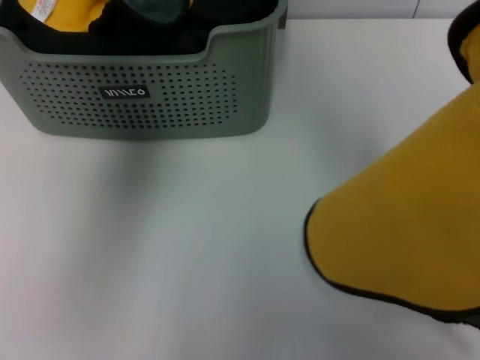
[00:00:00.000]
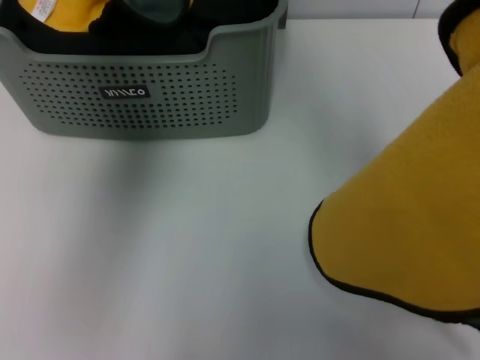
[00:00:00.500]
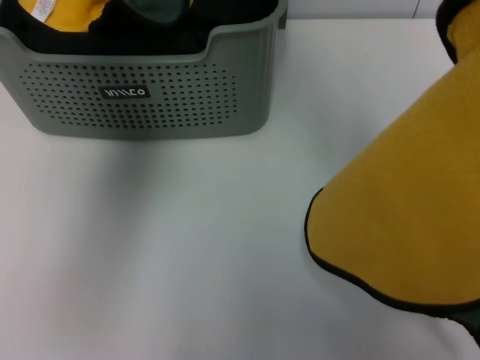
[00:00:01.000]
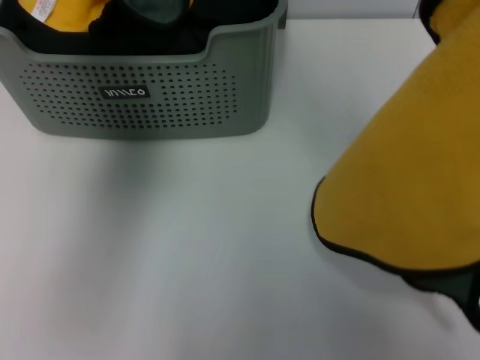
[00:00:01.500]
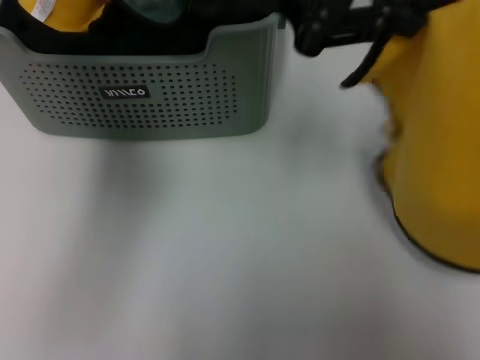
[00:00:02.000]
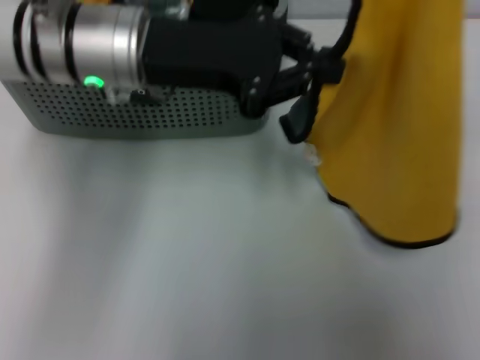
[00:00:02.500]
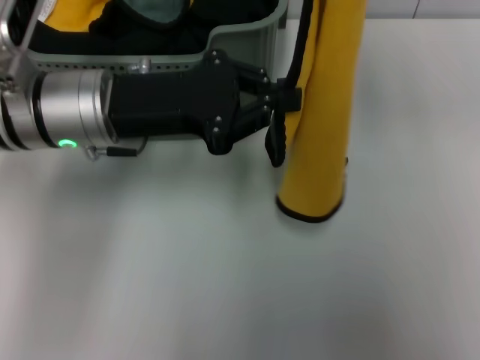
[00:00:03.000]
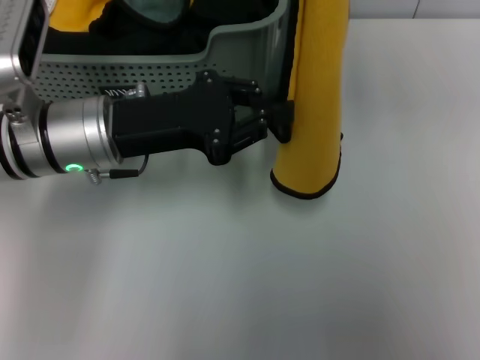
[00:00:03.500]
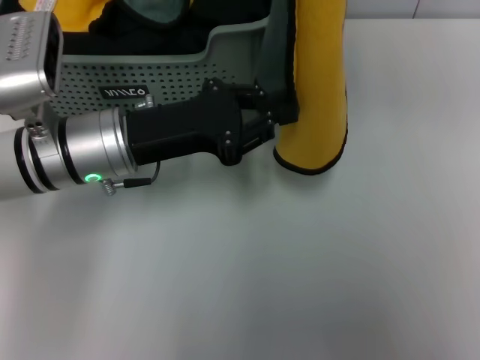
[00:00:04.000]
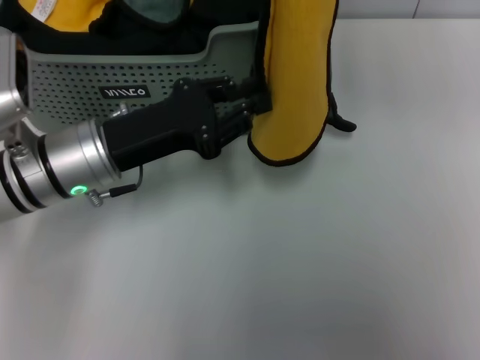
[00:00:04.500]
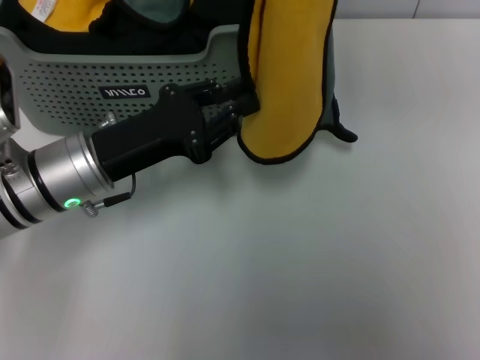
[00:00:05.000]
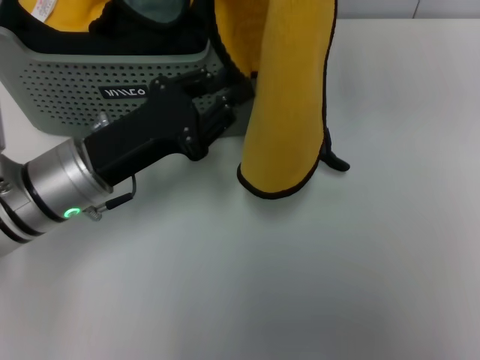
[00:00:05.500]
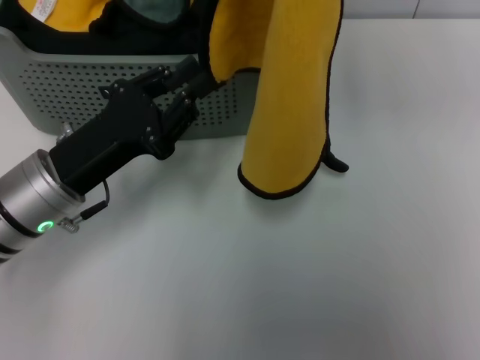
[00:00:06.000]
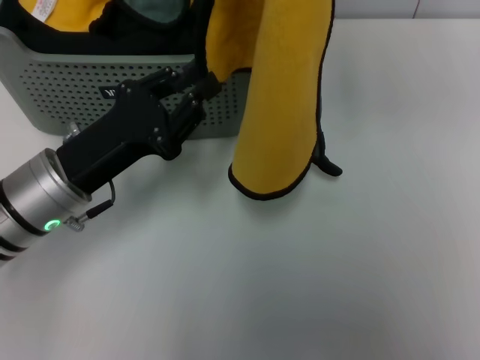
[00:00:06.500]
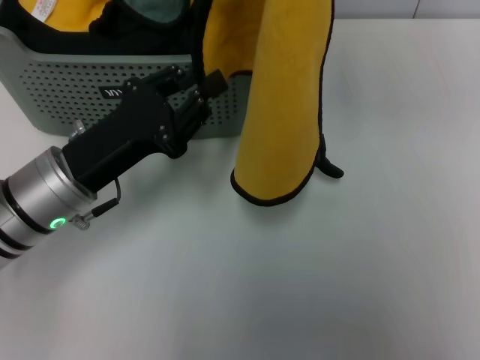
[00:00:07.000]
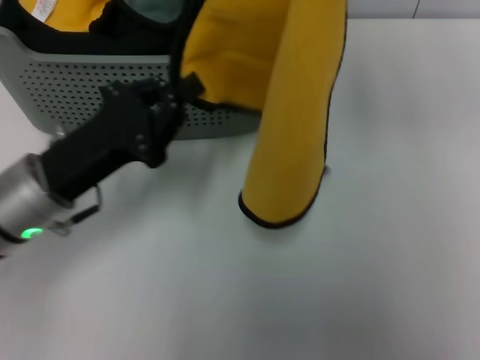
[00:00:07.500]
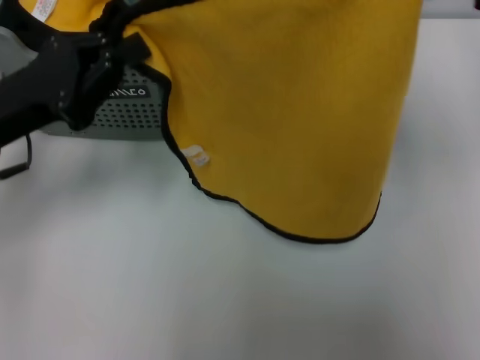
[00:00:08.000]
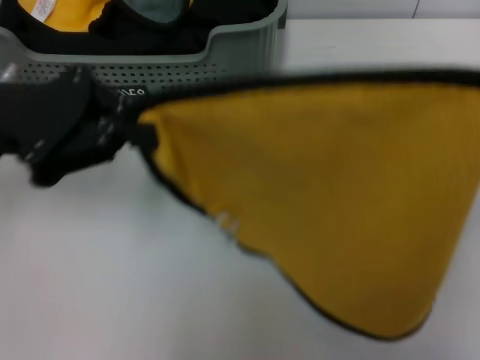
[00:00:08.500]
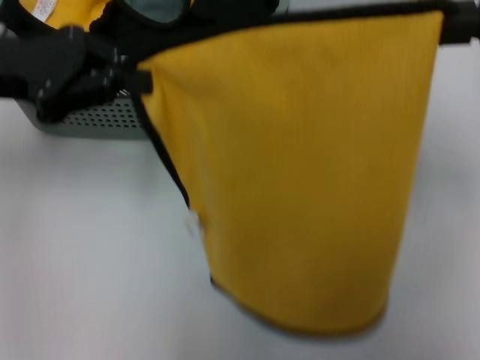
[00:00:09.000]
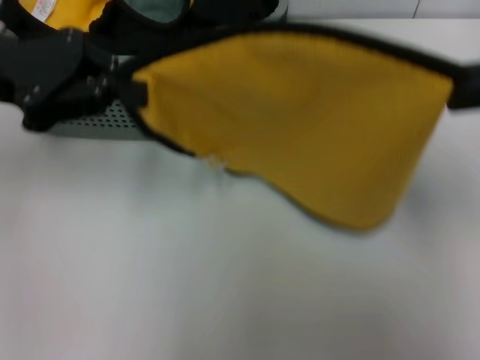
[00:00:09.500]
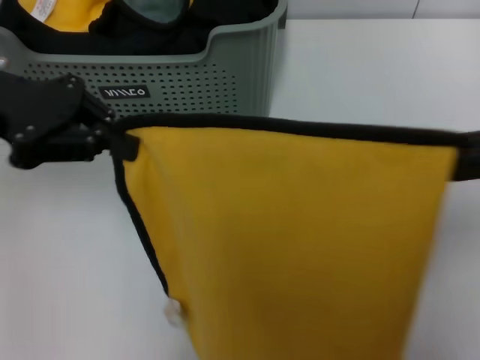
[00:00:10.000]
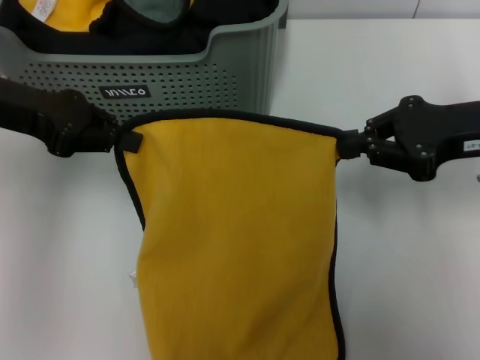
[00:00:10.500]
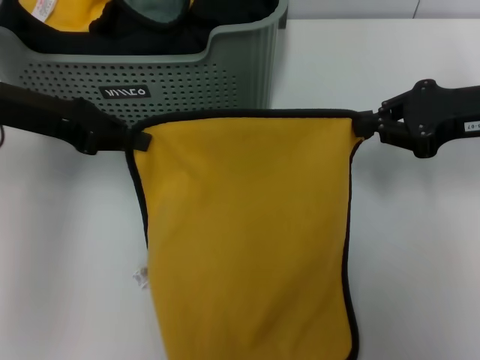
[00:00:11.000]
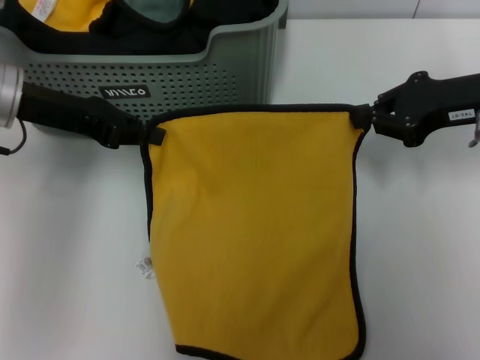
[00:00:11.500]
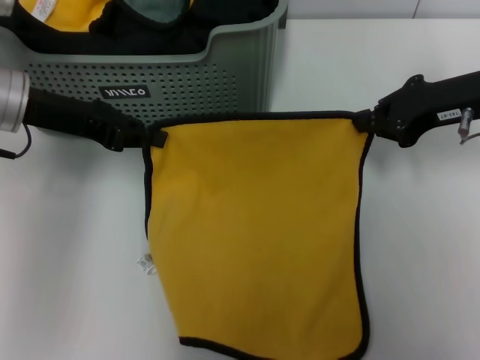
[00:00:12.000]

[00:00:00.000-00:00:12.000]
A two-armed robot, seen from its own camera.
Task of the whole recording: pick up the towel from the storage box and lay it flat on the table.
00:00:00.000 to 00:00:02.000: The left gripper moves downward and to the left, approximately 15 cm, while the right gripper is displaced upward by roughly 5 cm, and closes.
00:00:02.000 to 00:00:04.000: The right gripper goes some 20 cm to the left, upward and forward. Meanwhile the left gripper is displaced downward, to the left and backward by about 20 cm.
00:00:04.000 to 00:00:06.000: The left gripper moves backward, some 5 cm.
00:00:06.000 to 00:00:08.000: The left gripper is displaced upward and to the left by some 10 cm, while the right gripper travels to the right and downward by roughly 10 cm.
00:00:08.000 to 00:00:10.000: The right gripper is displaced backward and downward by about 10 cm. The left gripper travels upward by some 5 cm.
00:00:10.000 to 00:00:12.000: The right gripper is displaced forward and downward by about 15 cm, while the left gripper shifts roughly 5 cm downward.

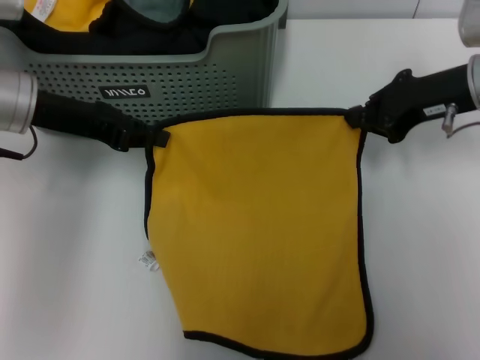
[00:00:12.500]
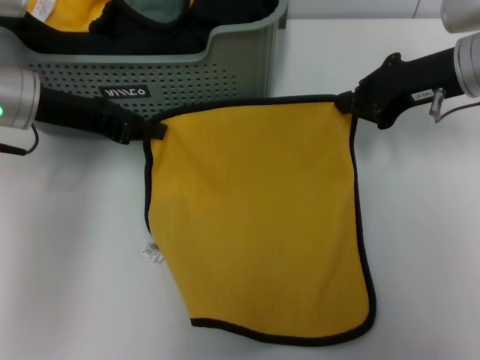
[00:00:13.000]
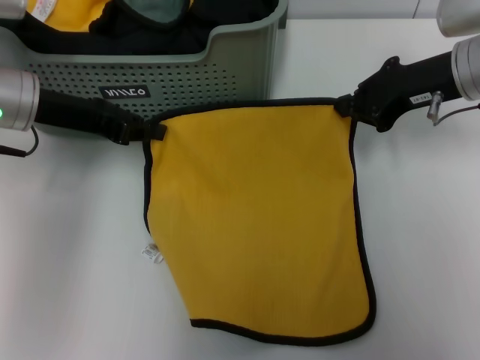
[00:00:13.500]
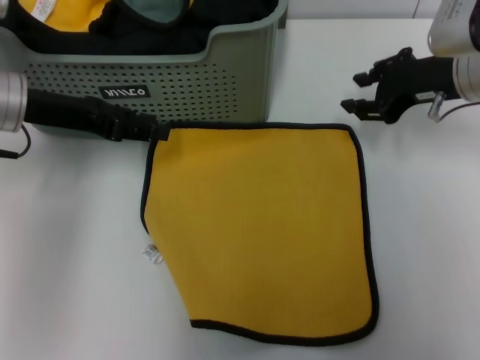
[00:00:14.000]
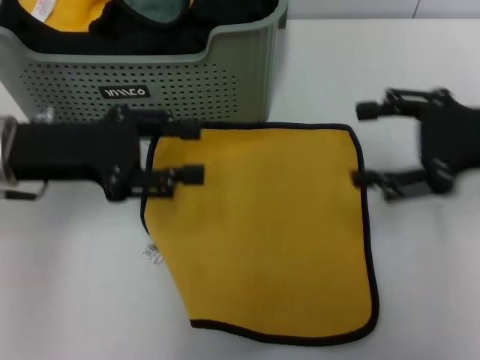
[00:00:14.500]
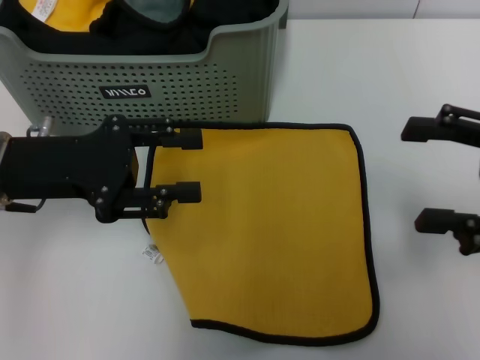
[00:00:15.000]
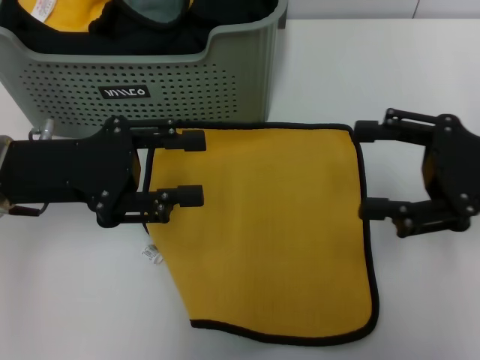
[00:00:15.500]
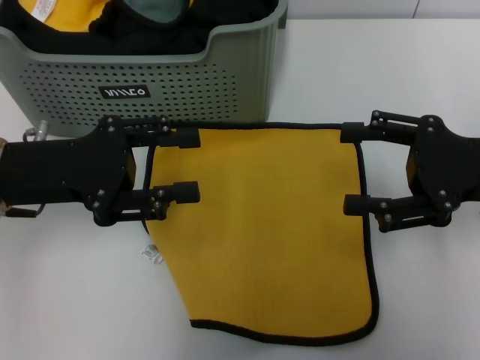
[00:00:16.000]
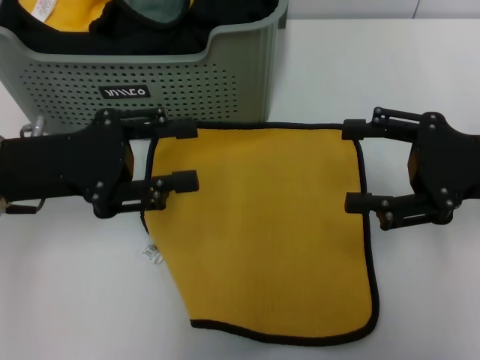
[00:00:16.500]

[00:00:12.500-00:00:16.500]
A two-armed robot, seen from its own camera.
Task of the whole recording: pick up the towel from the storage box and lay it flat on the table.
00:00:12.500 to 00:00:14.500: Both grippers move backward, some 5 cm. The left gripper opens, while the right gripper opens.
